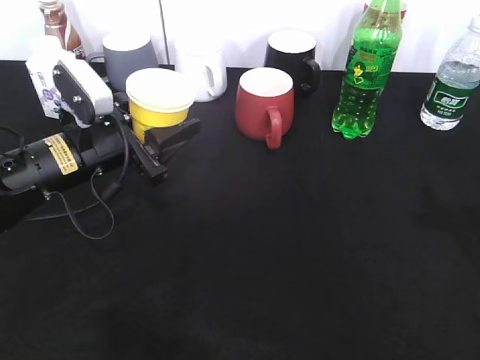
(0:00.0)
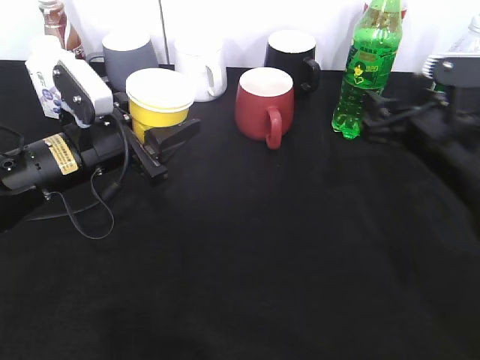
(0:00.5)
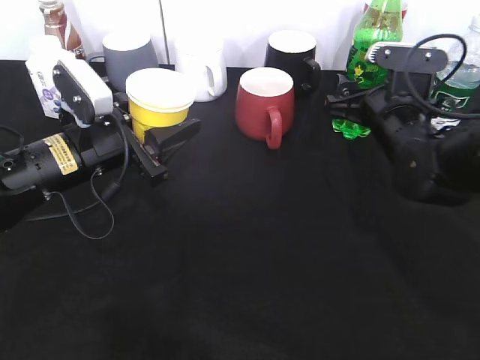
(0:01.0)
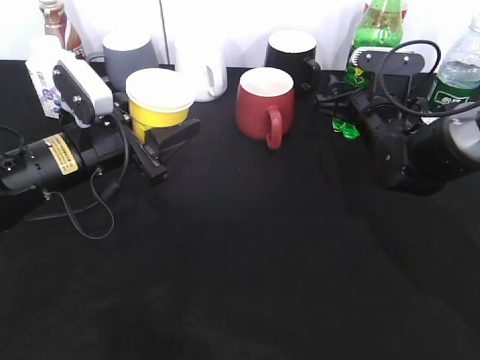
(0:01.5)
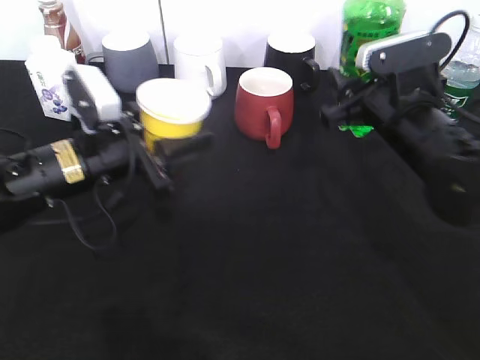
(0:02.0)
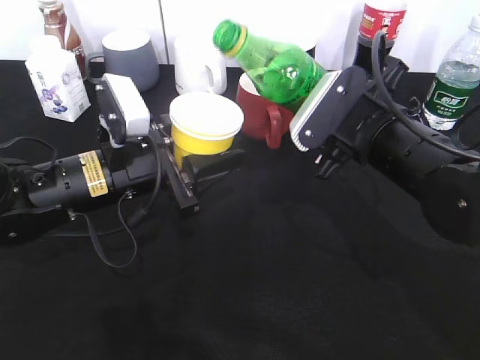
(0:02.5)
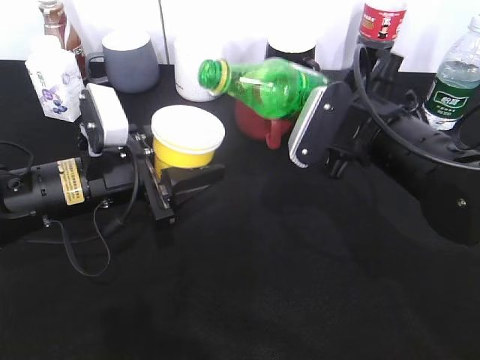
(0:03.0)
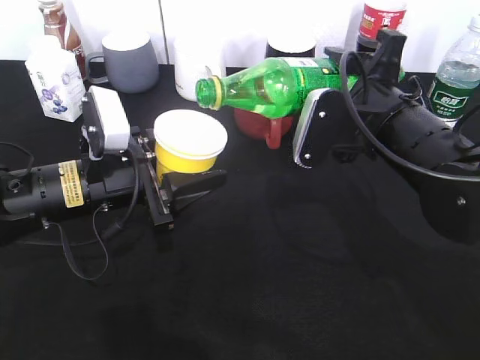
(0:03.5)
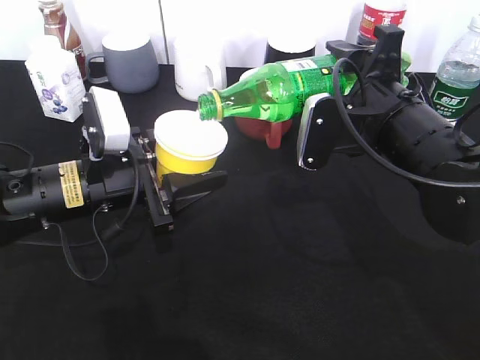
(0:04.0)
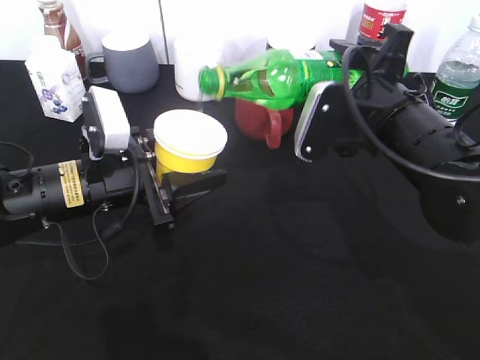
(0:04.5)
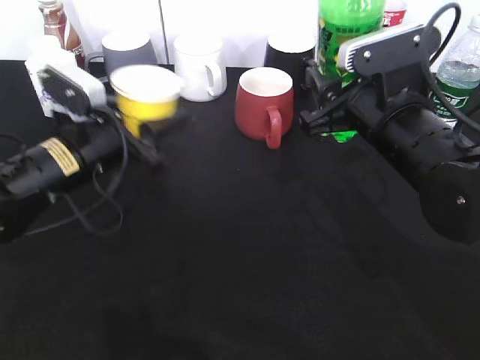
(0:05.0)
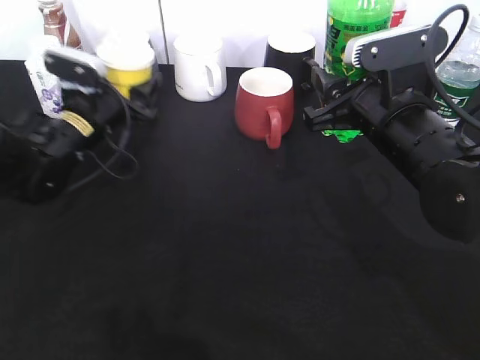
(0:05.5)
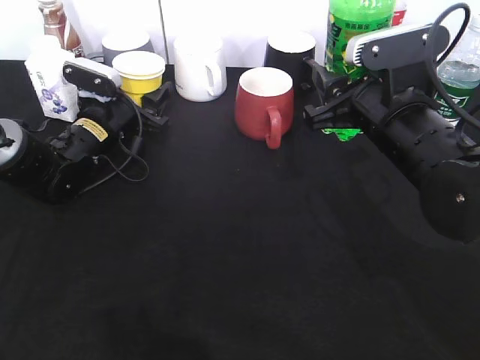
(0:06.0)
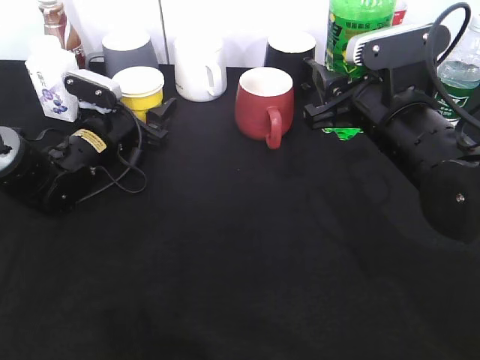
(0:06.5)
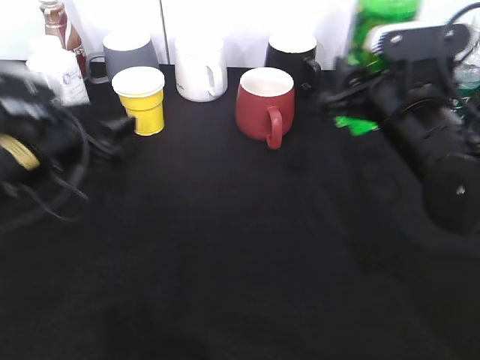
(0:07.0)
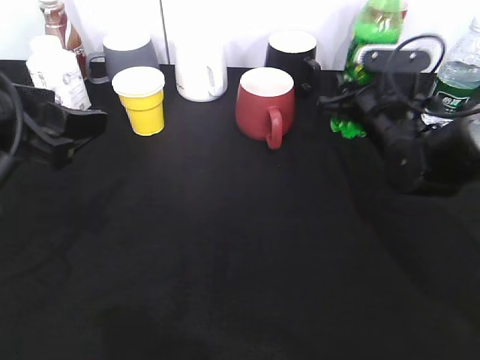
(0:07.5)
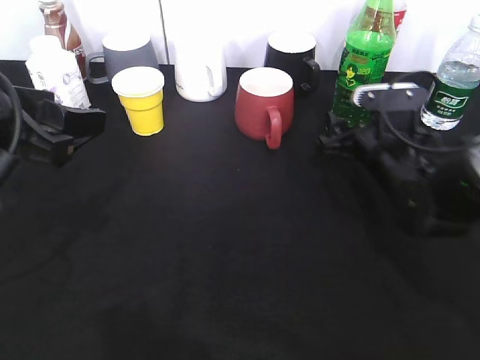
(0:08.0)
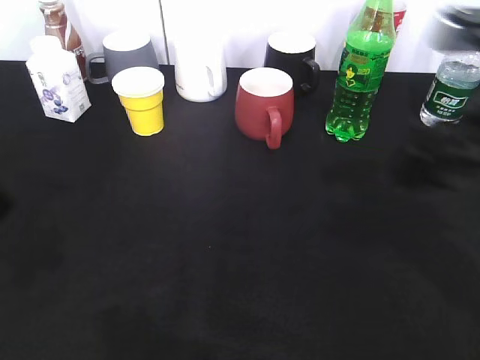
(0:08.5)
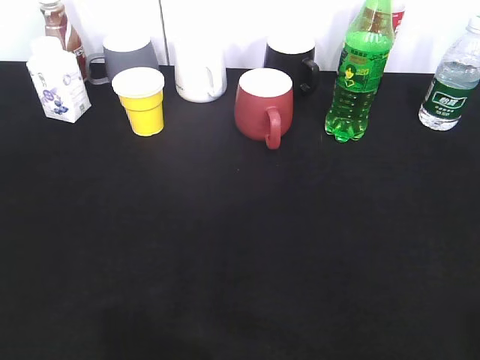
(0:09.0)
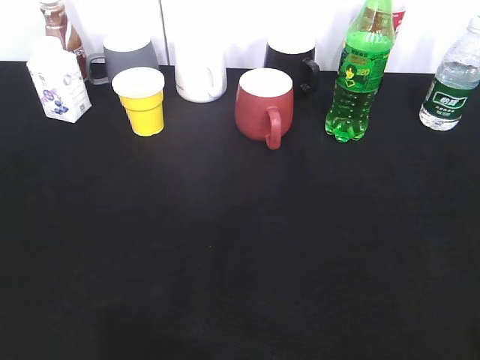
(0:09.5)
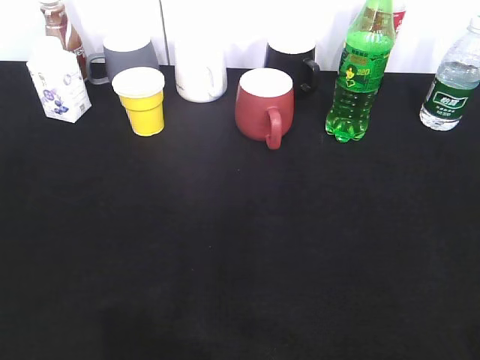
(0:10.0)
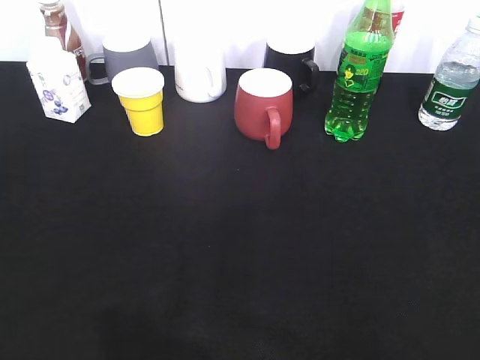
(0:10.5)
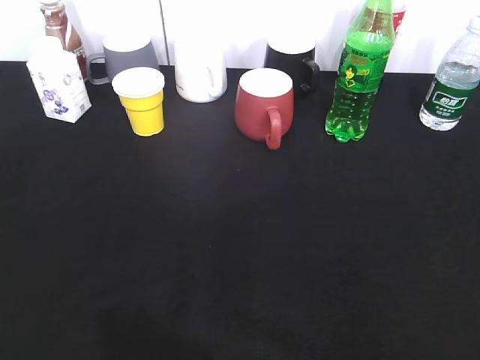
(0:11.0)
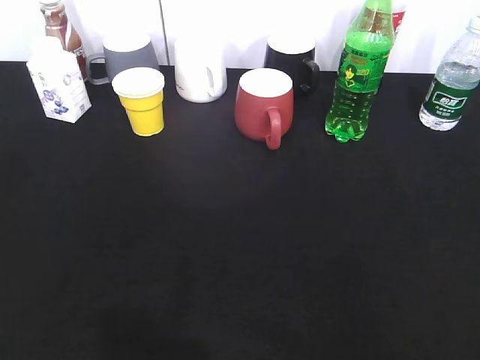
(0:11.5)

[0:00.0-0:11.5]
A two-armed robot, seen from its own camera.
Step, 0:00.5 to 0:01.5: Grasp the bottle with sprite with right gripper.
Step, 0:02.0 to 0:04.5: Pour the sprite from bottle to cup with right gripper.
Step, 0:05.0 to 0:07.5: Place the sprite bottle on the table with right gripper.
0:00.0 to 0:02.0: The right gripper travels forward, to the left and downward by some 20 cm, and closes up.
0:04.0 to 0:06.0: The left gripper heads forward, covering about 15 cm.
0:06.0 to 0:07.5: The right gripper travels forward and downward by about 10 cm. The left gripper moves backward and upward, about 25 cm.
0:07.5 to 0:09.5: The right gripper is displaced backward and upward by about 40 cm, and opens up. The left gripper goes roughly 20 cm backward and to the left.
